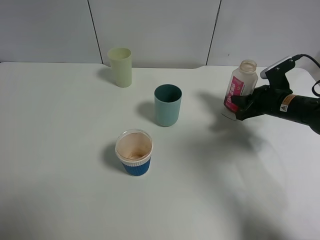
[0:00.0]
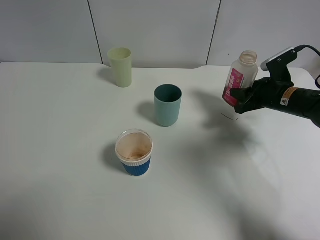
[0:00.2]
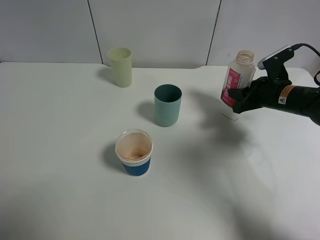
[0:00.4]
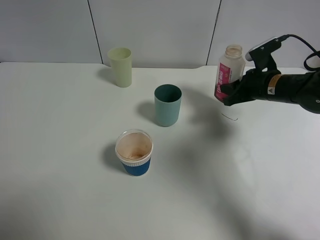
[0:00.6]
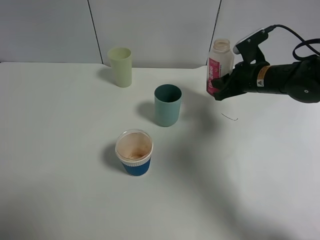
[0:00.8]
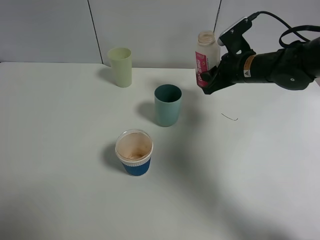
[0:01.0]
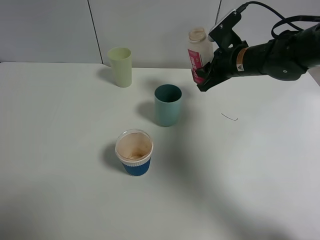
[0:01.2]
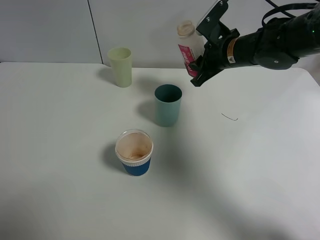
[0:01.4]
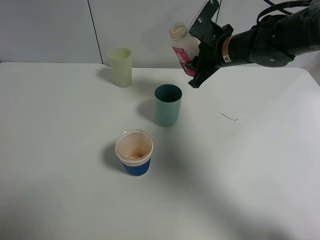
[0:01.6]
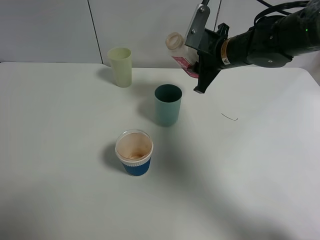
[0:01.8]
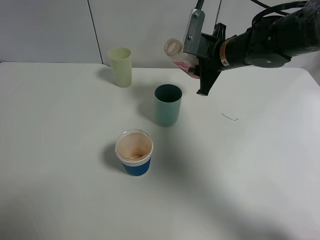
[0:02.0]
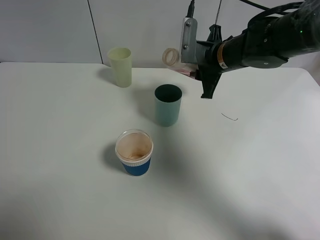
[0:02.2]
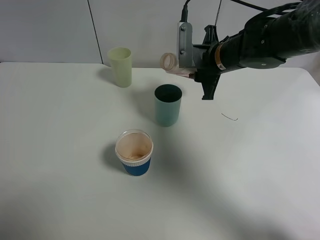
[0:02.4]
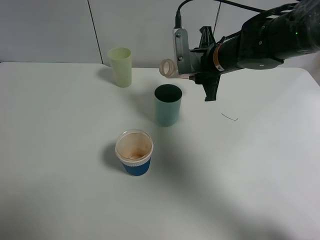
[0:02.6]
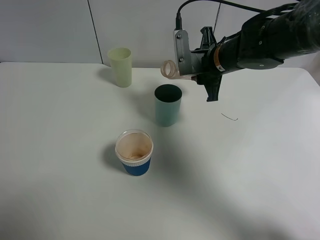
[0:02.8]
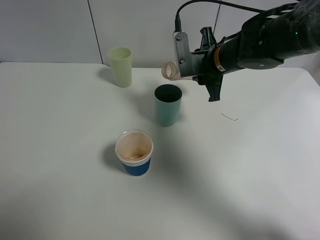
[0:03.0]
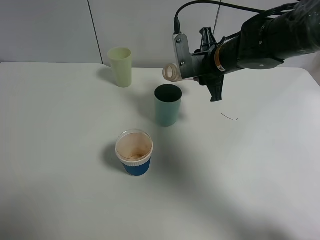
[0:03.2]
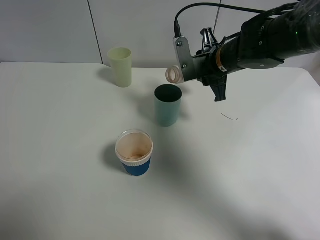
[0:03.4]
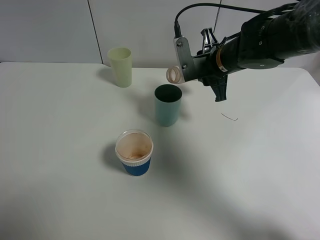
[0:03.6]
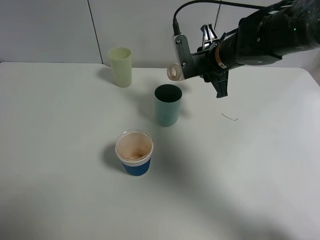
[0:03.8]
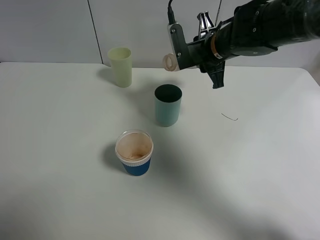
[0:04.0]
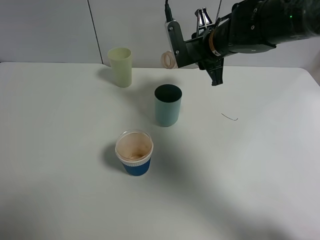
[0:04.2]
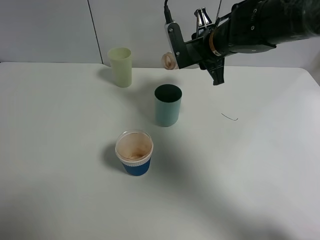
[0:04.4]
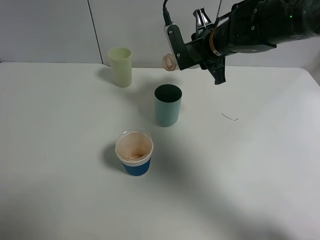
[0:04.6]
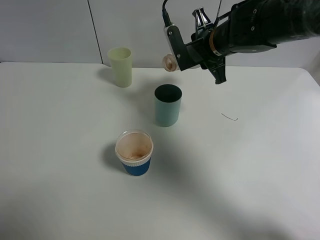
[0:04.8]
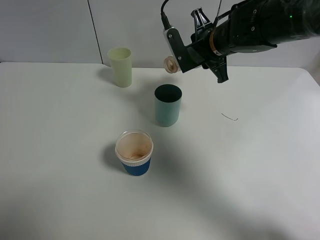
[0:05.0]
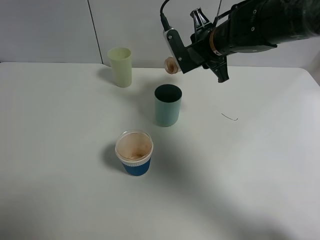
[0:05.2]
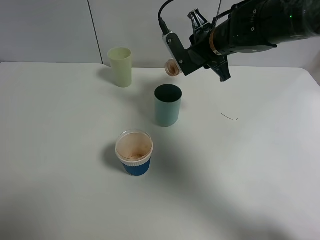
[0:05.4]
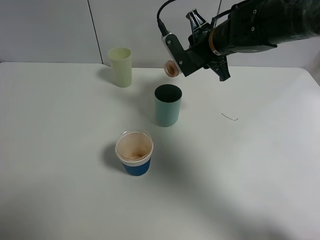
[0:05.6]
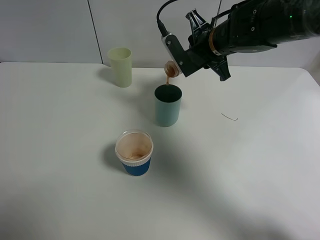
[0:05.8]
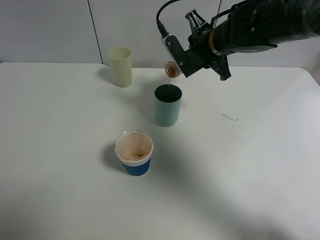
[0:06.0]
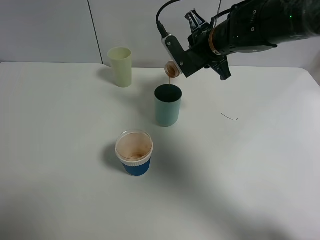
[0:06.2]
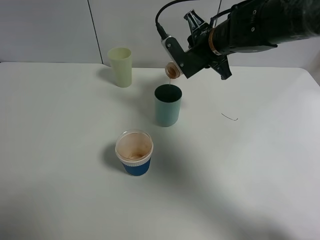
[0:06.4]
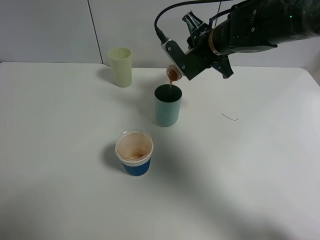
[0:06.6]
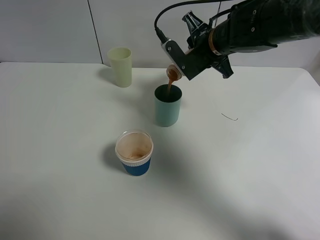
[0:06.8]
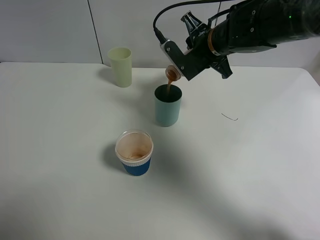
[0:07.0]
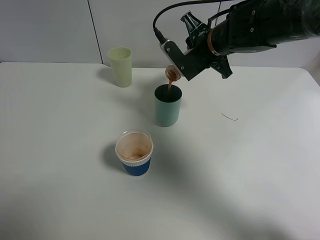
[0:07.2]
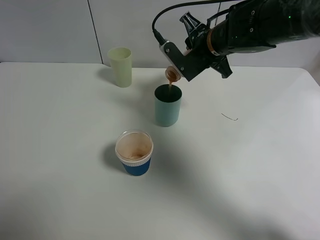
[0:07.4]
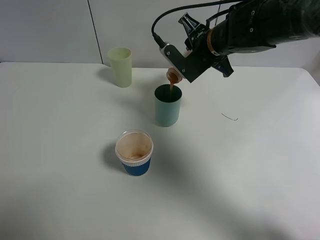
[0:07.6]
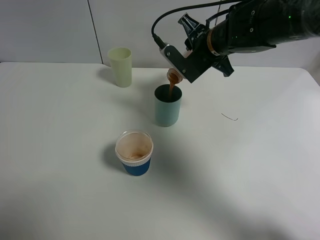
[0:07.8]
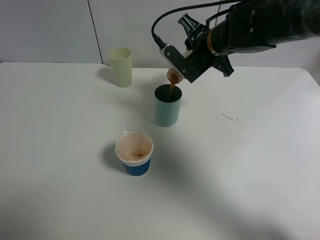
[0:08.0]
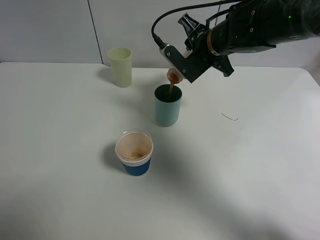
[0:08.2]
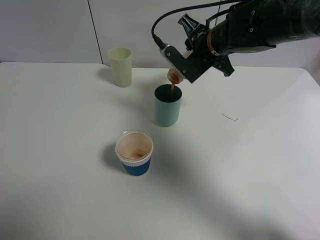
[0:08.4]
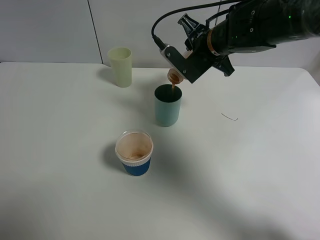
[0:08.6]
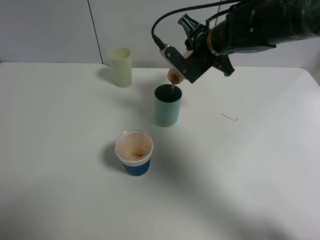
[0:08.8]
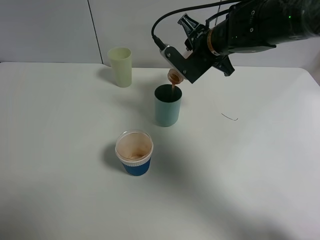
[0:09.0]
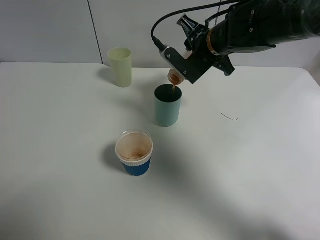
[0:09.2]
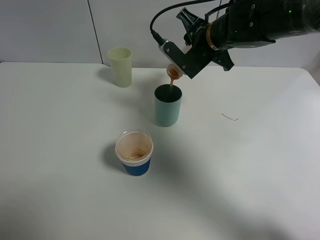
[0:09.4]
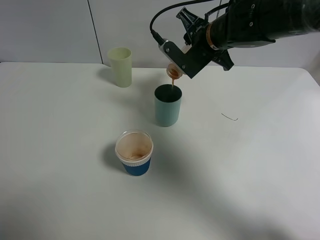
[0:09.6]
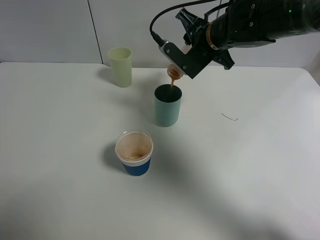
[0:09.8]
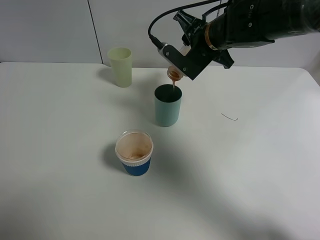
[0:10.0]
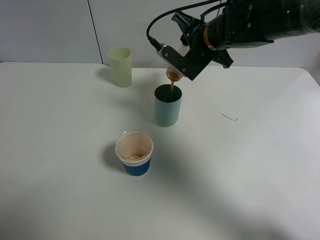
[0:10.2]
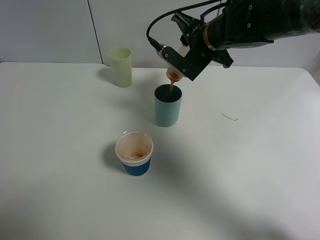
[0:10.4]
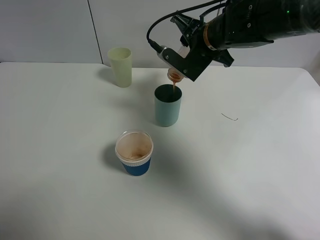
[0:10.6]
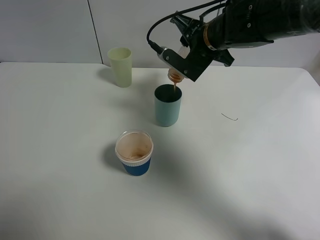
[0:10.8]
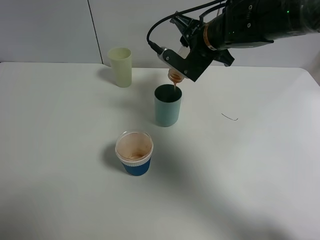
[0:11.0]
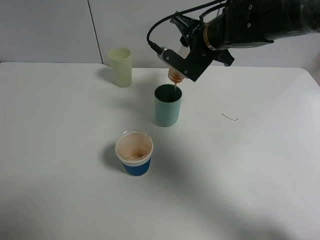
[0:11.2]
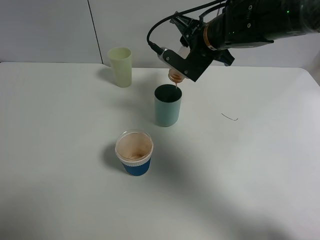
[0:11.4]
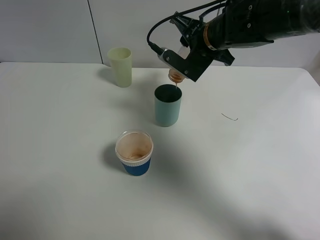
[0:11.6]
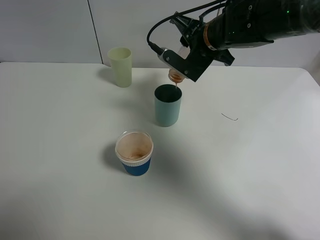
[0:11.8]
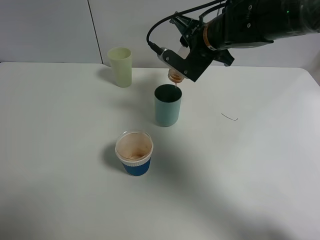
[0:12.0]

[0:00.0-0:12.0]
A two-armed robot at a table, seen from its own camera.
Task of the whole recording: use a gripper to hold the bottle of the drink and pour it into a random cup.
0:00.0 to 0:01.6: The right gripper goes some 20 cm to the left and upward.
0:03.0 to 0:04.4: There are only small adjustments of the grippers.
0:04.4 to 0:06.0: There are only small adjustments of the grippers.
0:06.0 to 0:07.6: The grippers make only small movements.
0:07.6 to 0:09.0: Both grippers stay put.
0:09.0 to 0:10.4: The grippers make only small movements.
0:10.4 to 0:12.0: Neither gripper changes place.

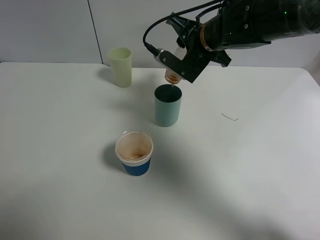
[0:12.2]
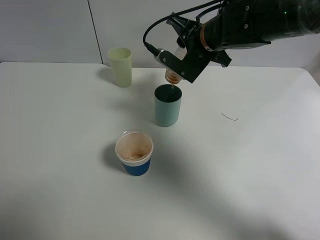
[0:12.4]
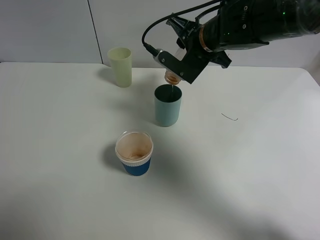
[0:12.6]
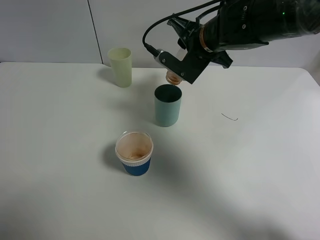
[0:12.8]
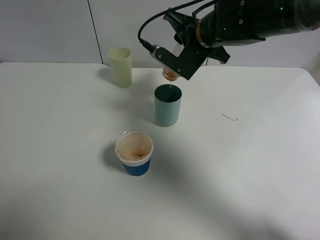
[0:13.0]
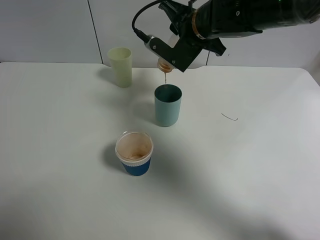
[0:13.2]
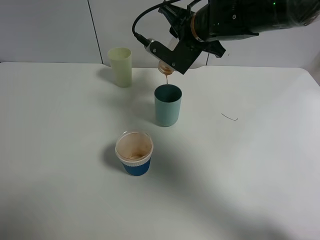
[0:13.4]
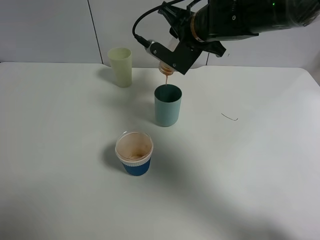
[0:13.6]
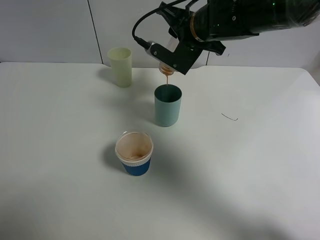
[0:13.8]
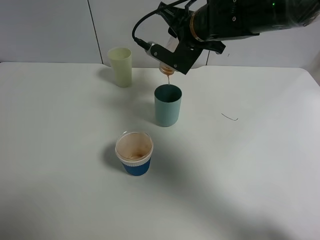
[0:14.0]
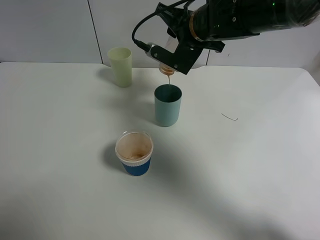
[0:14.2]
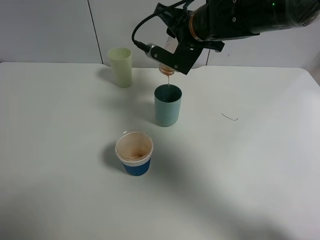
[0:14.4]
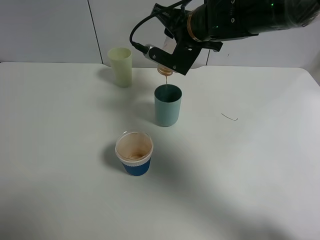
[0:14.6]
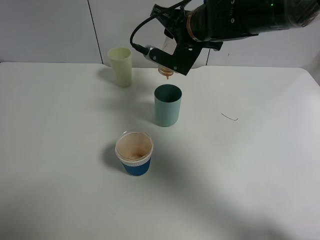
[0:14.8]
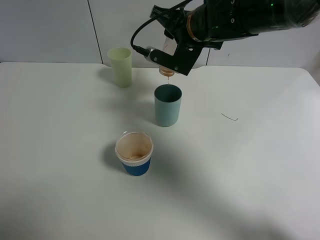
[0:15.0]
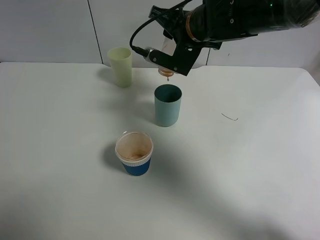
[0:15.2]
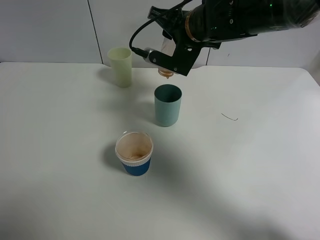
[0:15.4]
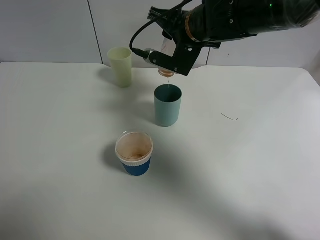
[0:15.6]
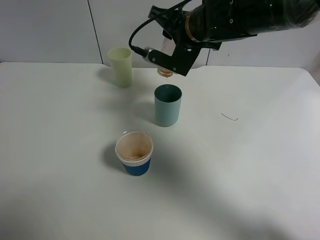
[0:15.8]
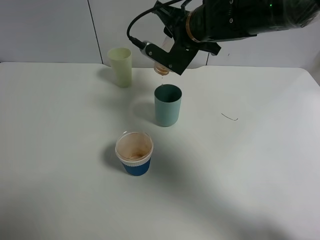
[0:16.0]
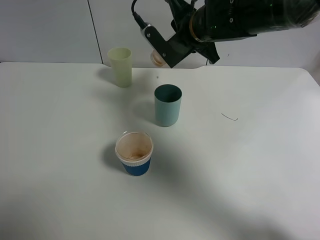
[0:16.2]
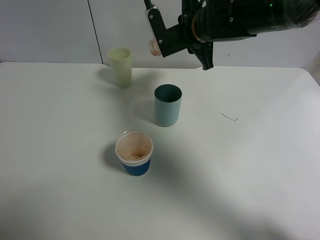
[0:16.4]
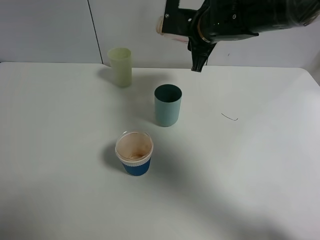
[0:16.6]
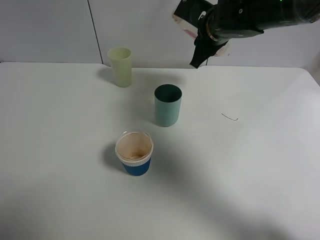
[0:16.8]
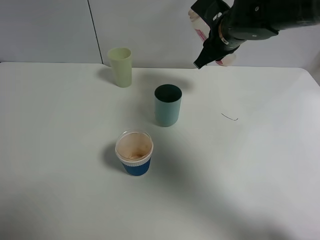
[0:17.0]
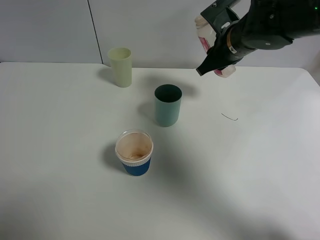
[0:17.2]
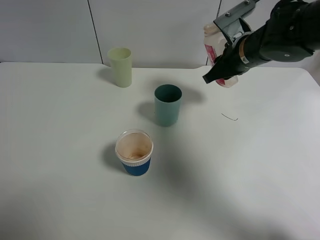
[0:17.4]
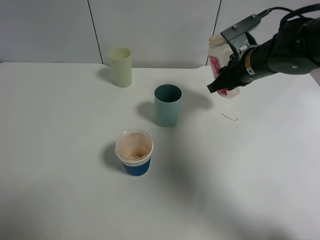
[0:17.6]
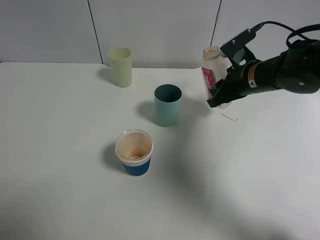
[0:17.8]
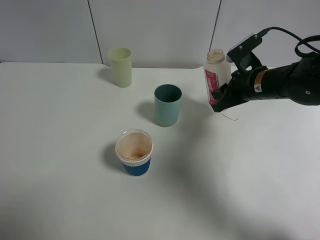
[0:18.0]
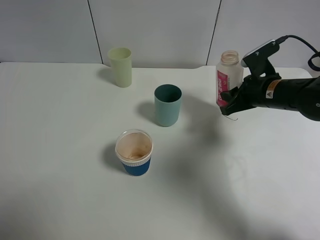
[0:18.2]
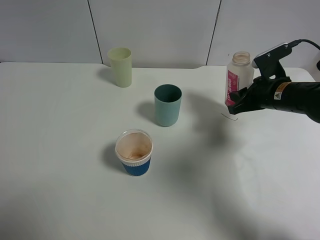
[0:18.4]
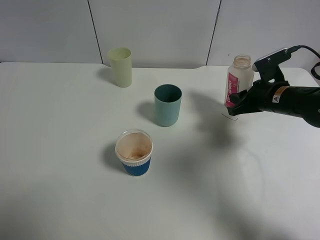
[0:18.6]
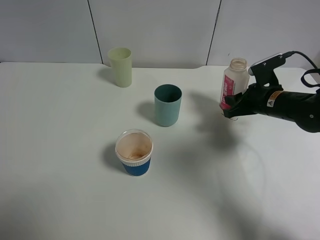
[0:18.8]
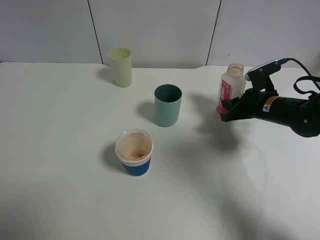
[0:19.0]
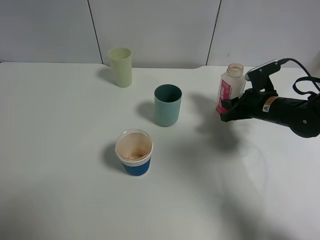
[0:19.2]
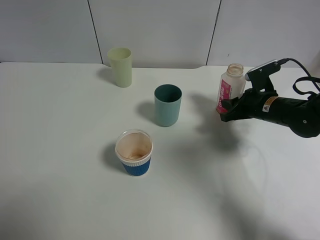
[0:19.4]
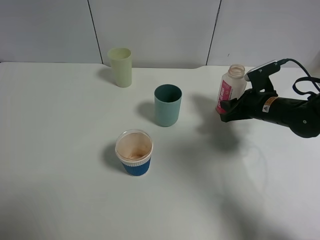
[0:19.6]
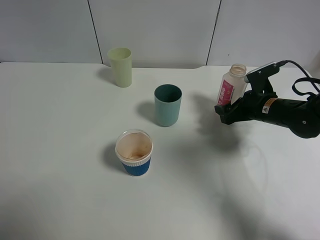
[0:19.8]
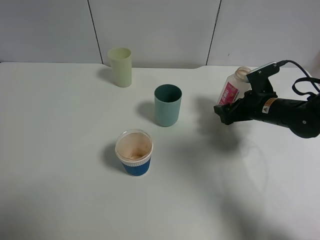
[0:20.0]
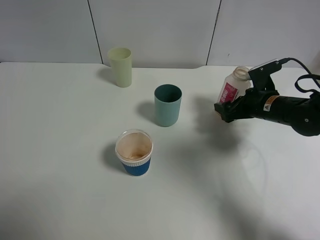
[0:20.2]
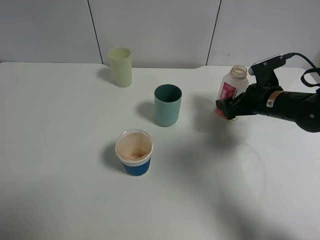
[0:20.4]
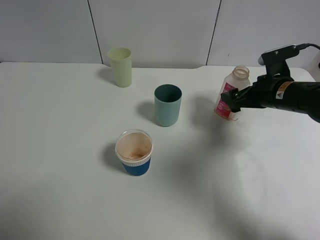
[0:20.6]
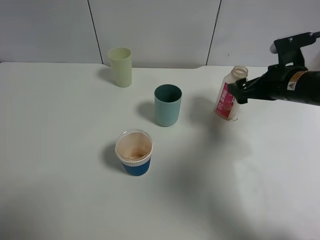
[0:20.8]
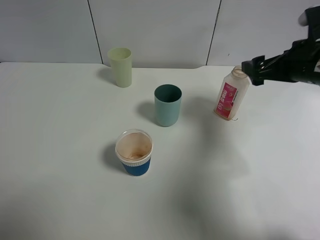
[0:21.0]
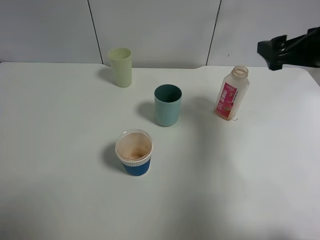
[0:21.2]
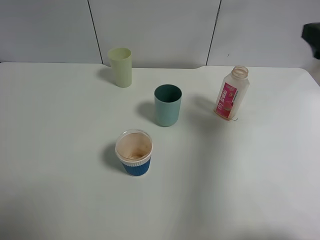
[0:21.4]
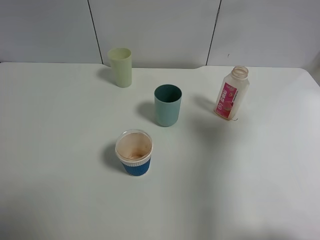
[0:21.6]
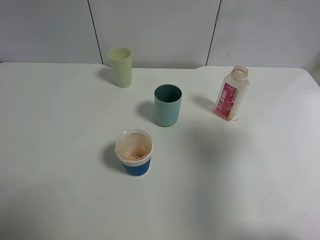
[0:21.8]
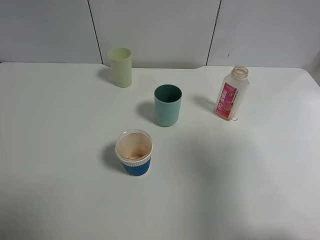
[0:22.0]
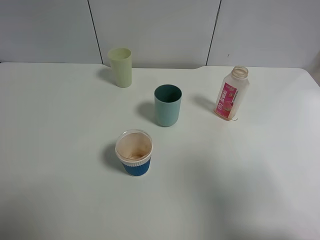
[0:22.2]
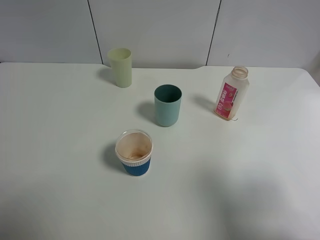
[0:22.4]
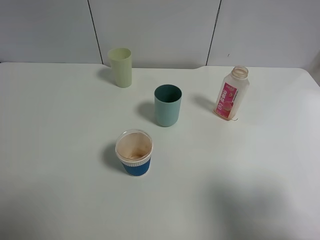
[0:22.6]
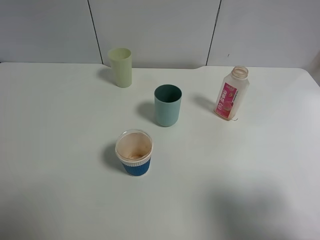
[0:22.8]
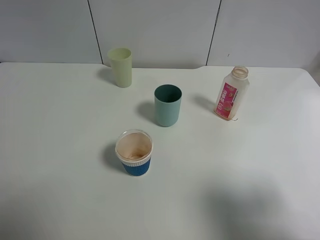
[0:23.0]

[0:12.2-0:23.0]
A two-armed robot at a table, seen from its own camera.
Task of the whole recording: use a gripper to hold the bottle of the drink and pour it into a random cup.
Step, 0:12.2 to 0:16.6: Pour the cranberry juice into the cyan cup with the right gripper.
Step, 0:16.8 to 0:20.6: Place the cranberry juice bottle on the table with the right gripper.
0:12.2 to 0:15.2: The grippers move only a little.
0:16.8 to 0:18.4: The right gripper goes some 20 cm to the right, downward and backward.
0:18.4 to 0:20.0: The right gripper opens its fingers.
0:20.0 to 0:21.4: The right gripper goes about 25 cm upward and backward.
0:21.4 to 0:23.0: The right gripper goes some 20 cm backward.
